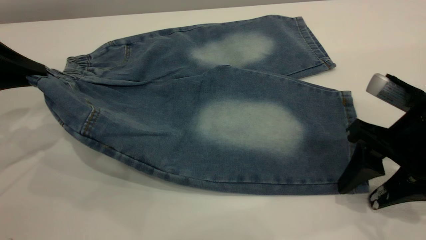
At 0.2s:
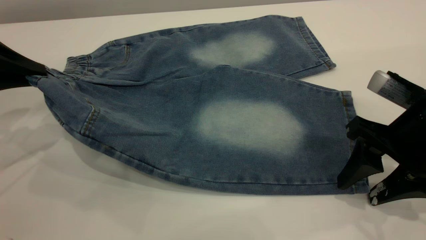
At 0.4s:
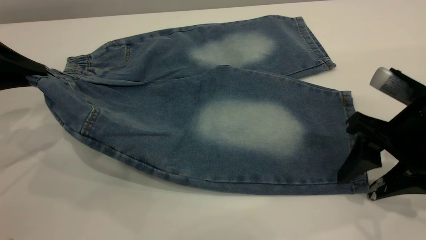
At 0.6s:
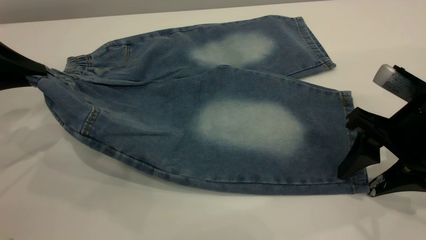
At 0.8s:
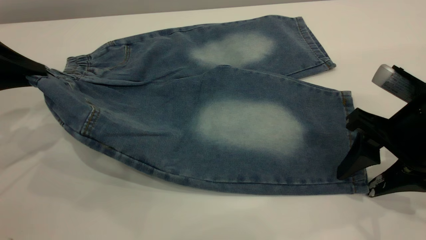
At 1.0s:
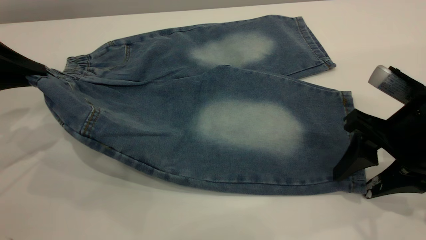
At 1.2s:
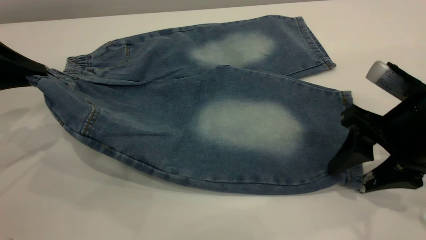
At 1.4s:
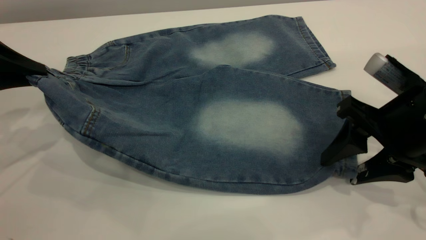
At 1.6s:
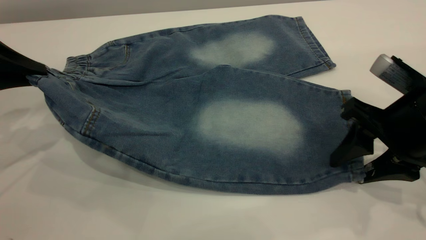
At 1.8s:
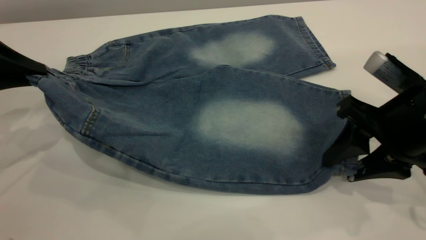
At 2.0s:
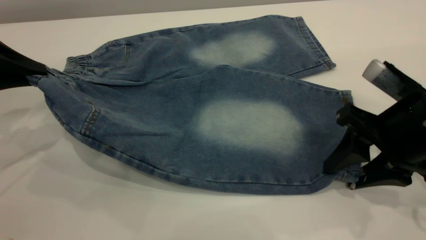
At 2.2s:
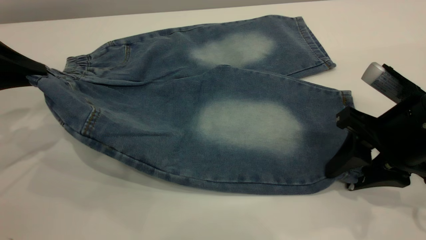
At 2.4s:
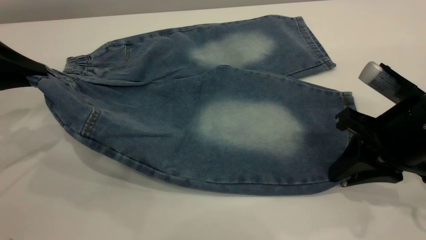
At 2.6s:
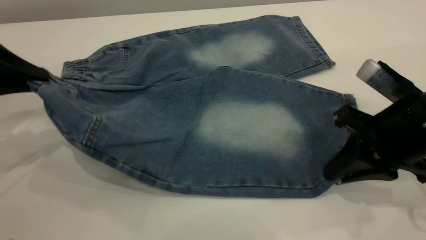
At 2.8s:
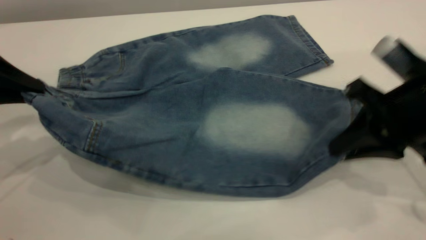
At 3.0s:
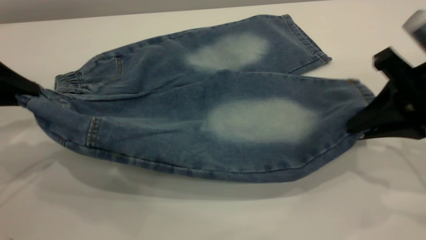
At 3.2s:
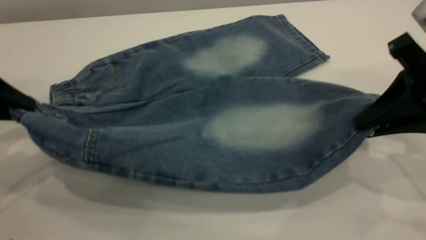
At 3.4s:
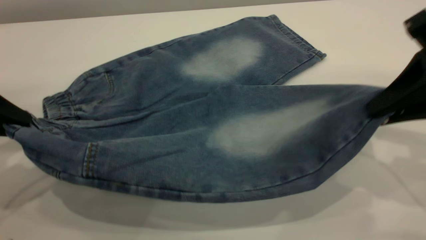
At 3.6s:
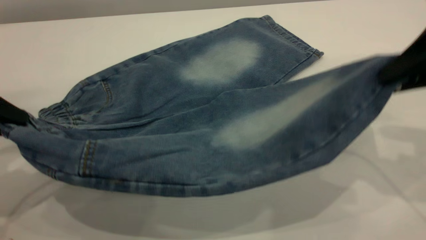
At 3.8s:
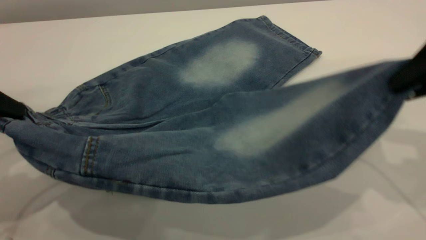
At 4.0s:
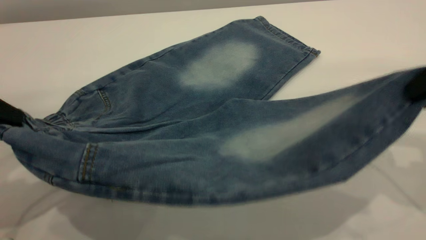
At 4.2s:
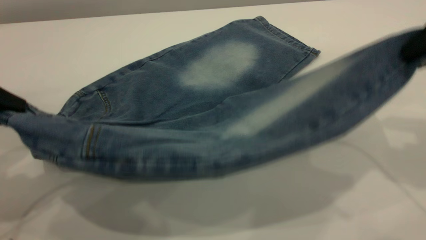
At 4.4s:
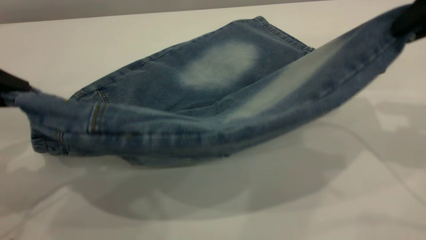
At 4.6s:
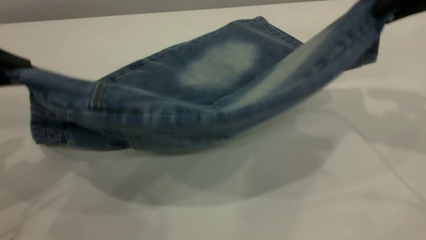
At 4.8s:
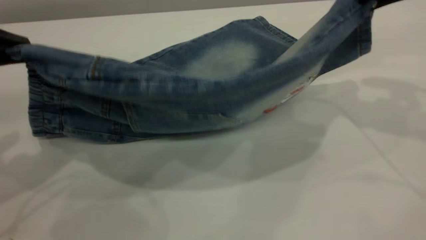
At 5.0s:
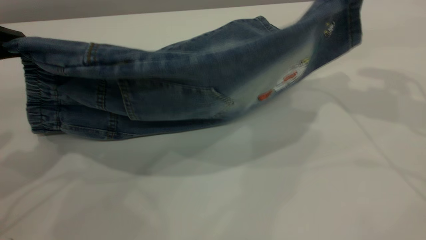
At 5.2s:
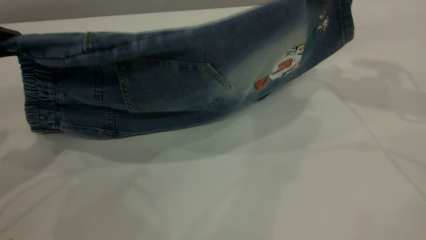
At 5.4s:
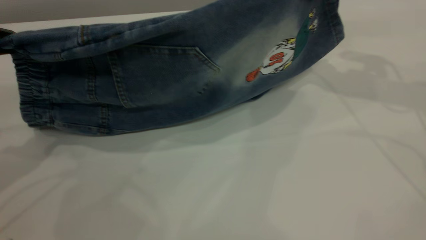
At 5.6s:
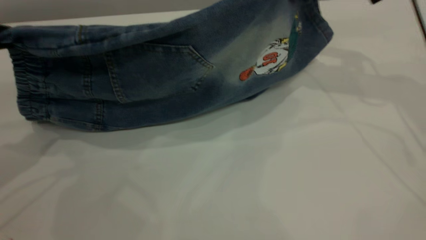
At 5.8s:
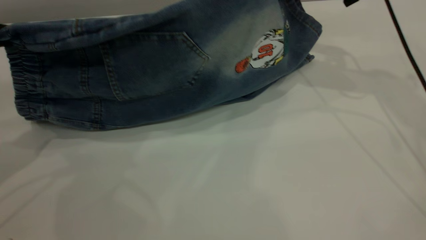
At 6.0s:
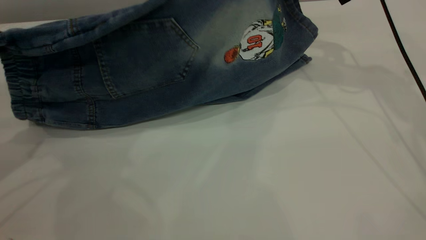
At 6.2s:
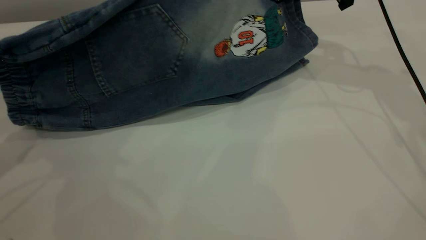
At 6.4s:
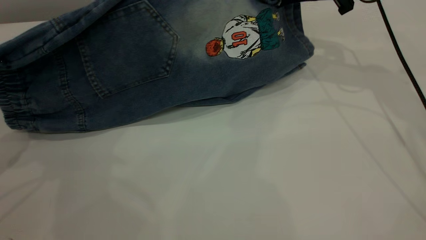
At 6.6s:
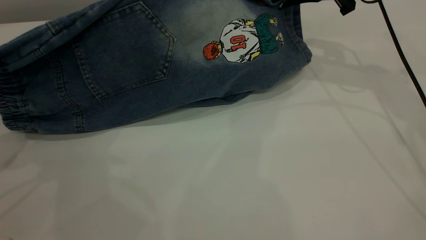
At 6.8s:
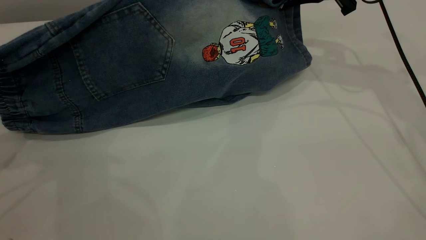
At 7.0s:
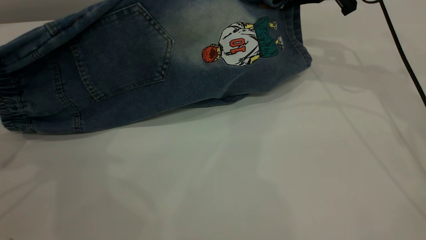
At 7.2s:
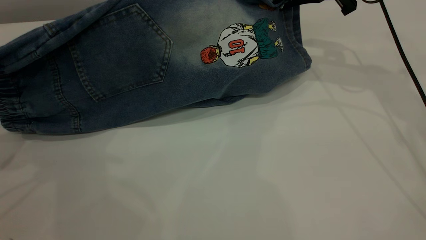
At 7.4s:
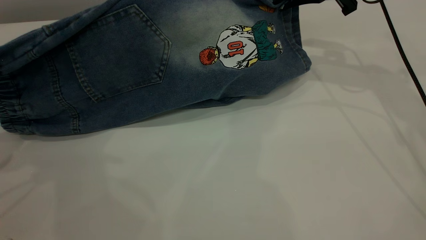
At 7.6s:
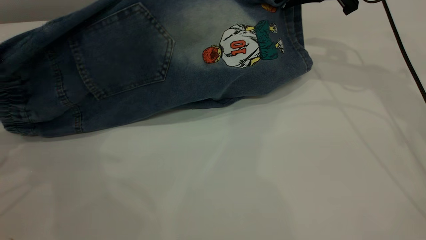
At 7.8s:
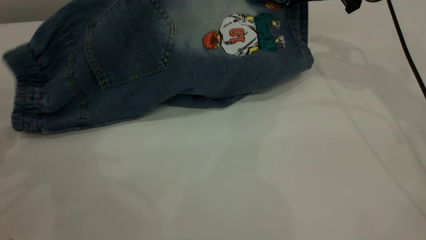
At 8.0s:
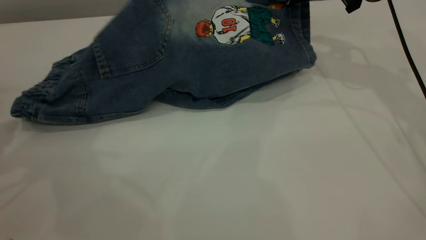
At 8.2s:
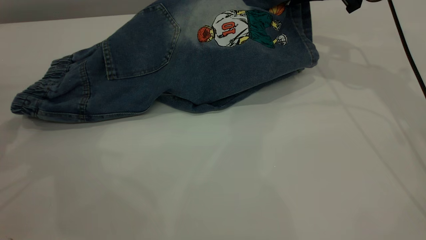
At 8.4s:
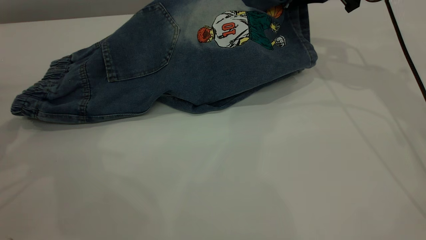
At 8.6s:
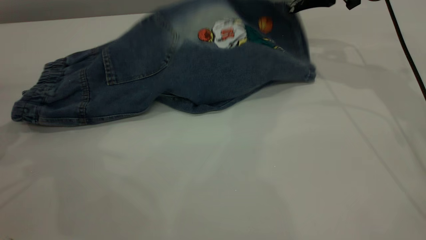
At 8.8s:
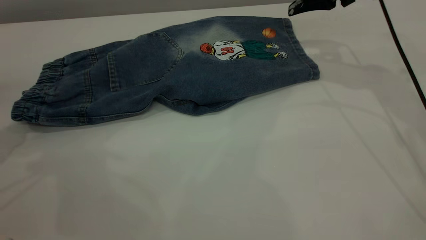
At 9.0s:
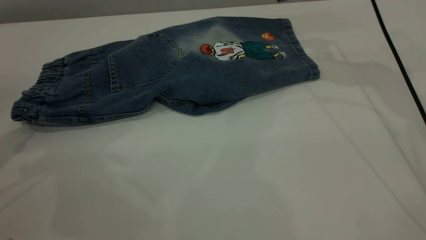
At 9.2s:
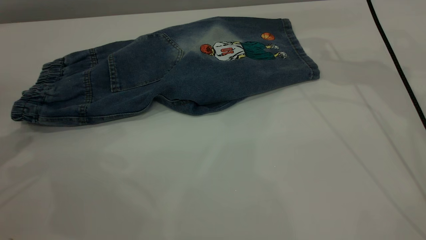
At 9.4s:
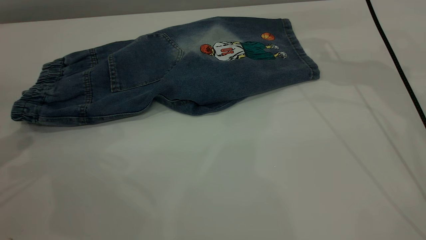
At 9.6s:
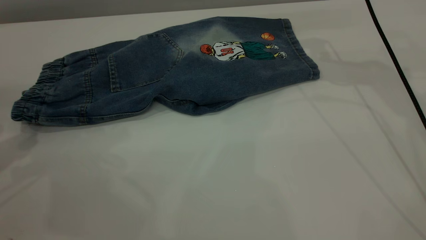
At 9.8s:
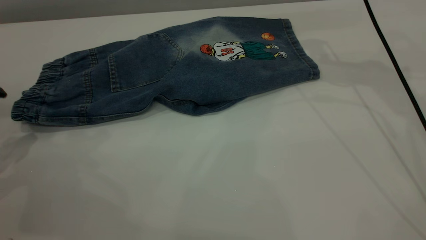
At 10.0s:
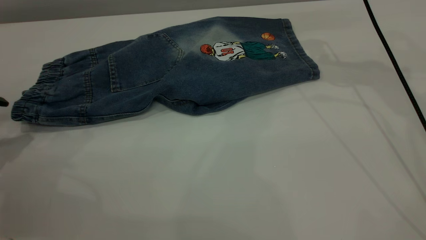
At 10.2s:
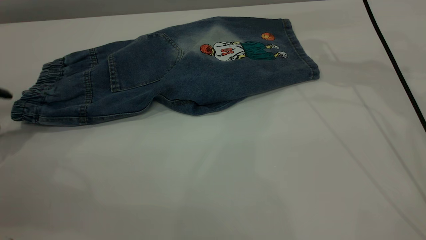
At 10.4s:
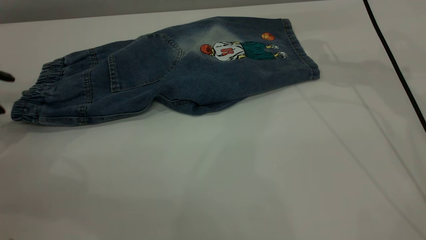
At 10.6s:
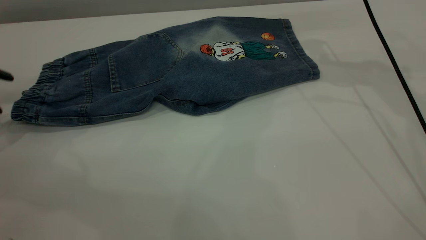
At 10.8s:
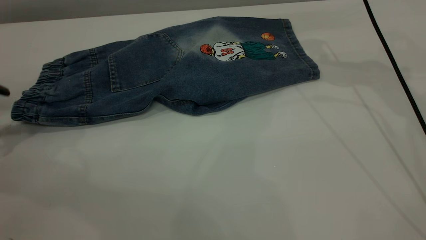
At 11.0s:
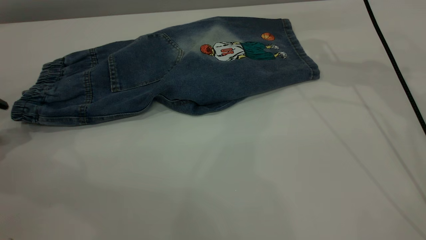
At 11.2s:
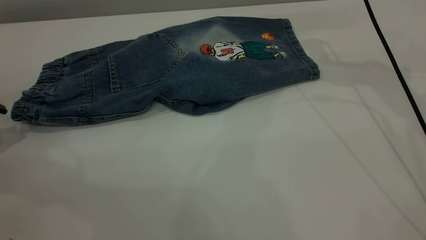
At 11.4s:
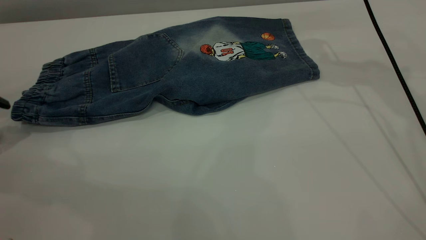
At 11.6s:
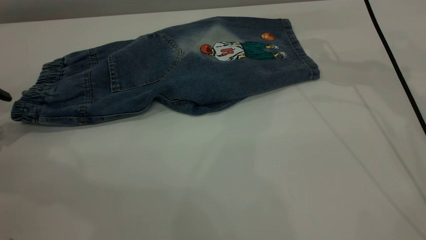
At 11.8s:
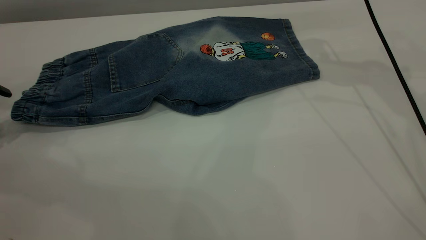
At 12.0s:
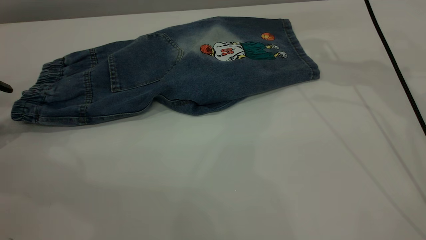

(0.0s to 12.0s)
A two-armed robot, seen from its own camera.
Step, 0.0s - 8.6s: Fold the bottom of the pants upward.
0.0s - 1.6s: The grippers make only small movements.
1.6s - 3.0s: The right gripper changes place by about 5 cm, and closes its fingers.
3.0s - 4.4s: The left gripper moves about 5 cm. The right gripper moves upward, roughly 10 cm.
4.4s - 6.0s: The right gripper heads forward and to the left, covering about 20 cm.
6.0s - 7.6s: The grippers stay close to where they were, moving slightly.
7.6s - 9.0s: The right gripper opens up.

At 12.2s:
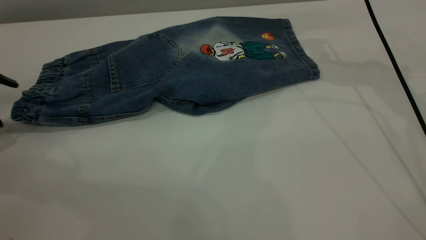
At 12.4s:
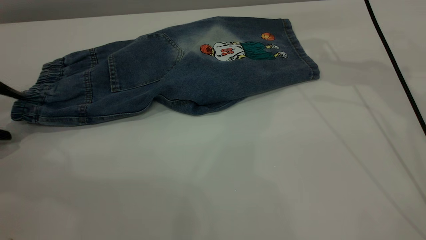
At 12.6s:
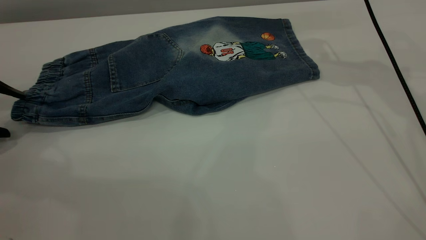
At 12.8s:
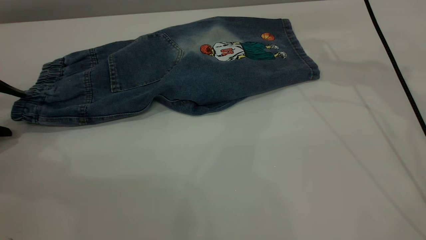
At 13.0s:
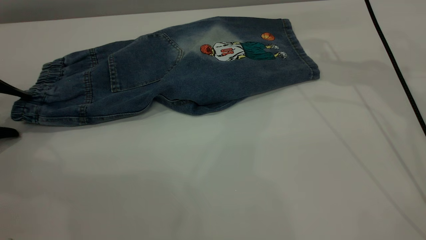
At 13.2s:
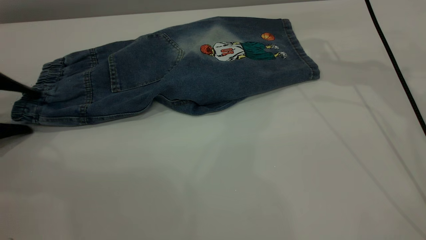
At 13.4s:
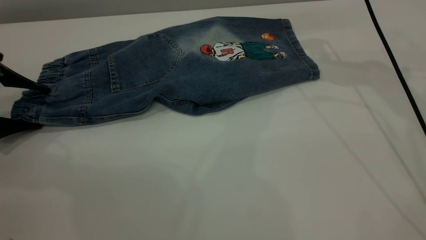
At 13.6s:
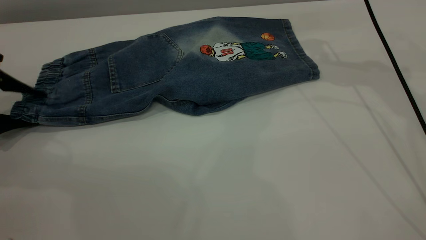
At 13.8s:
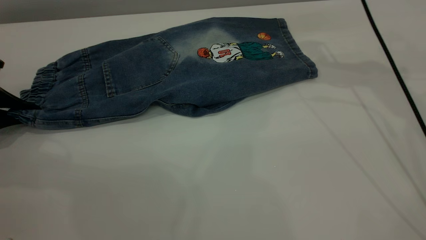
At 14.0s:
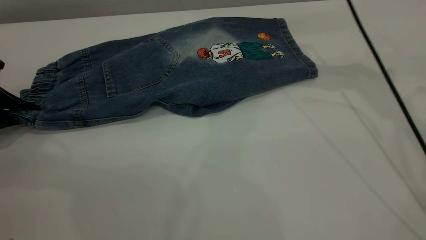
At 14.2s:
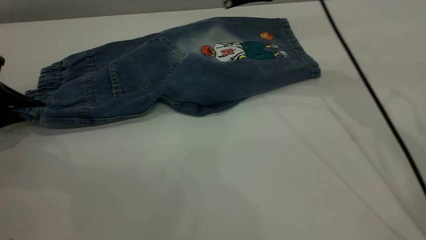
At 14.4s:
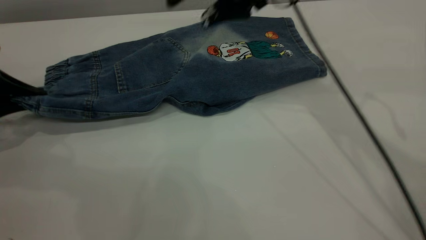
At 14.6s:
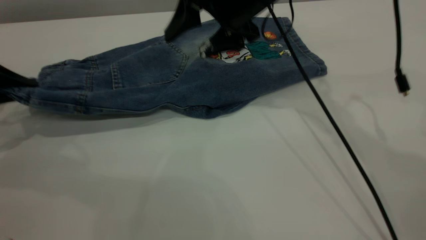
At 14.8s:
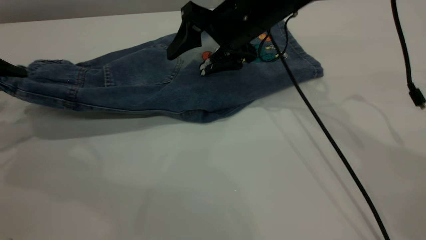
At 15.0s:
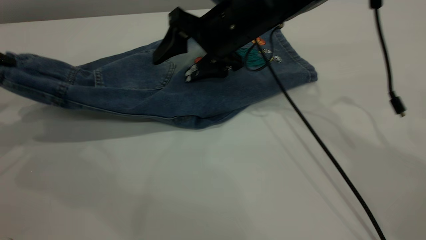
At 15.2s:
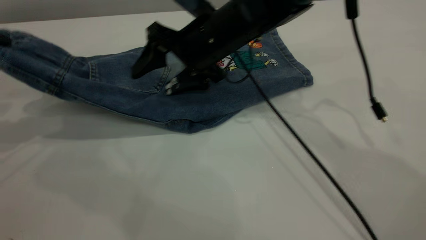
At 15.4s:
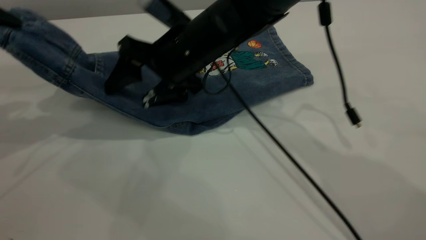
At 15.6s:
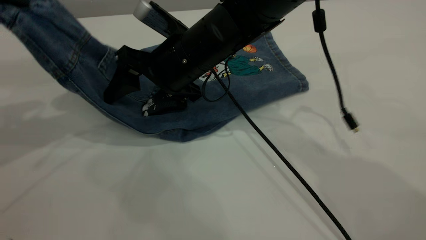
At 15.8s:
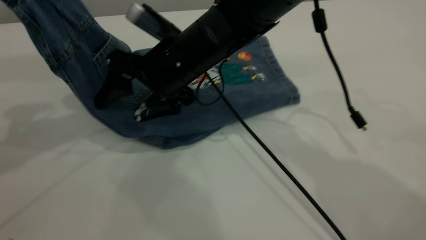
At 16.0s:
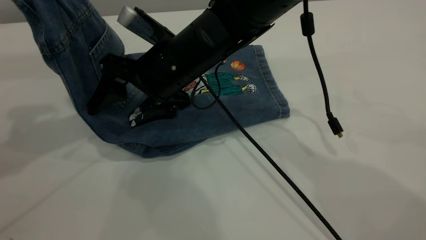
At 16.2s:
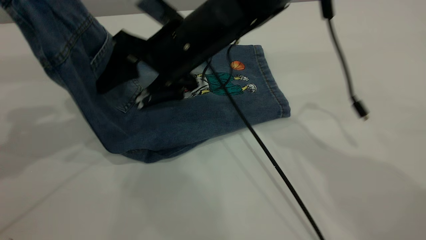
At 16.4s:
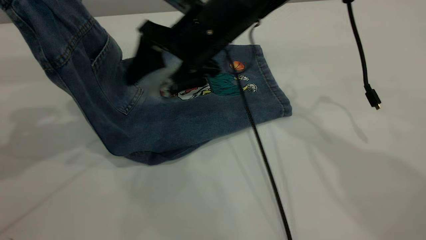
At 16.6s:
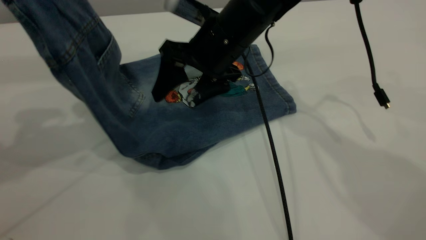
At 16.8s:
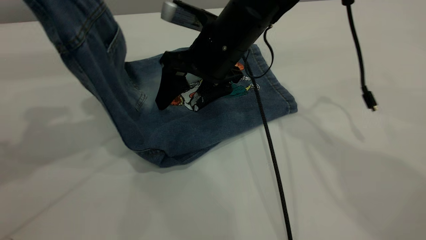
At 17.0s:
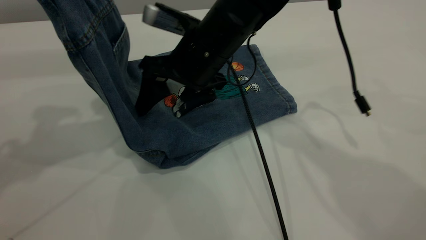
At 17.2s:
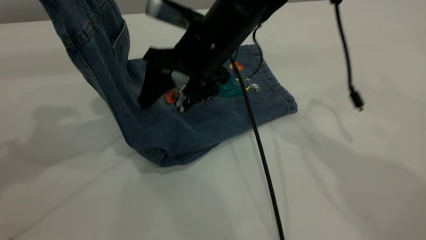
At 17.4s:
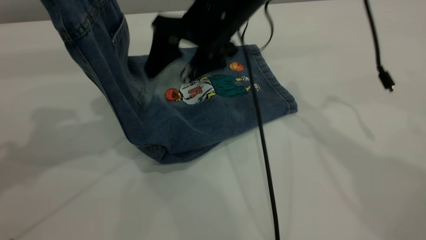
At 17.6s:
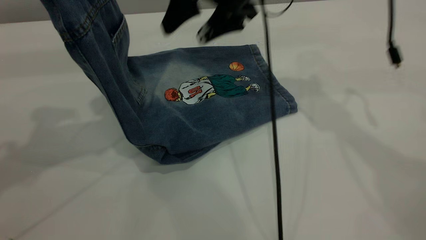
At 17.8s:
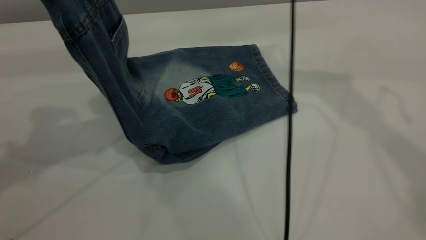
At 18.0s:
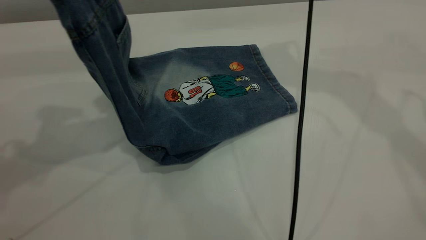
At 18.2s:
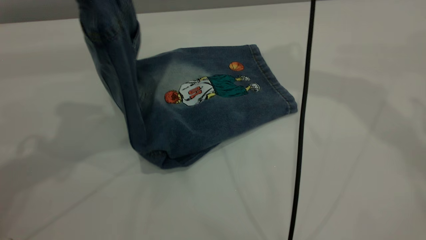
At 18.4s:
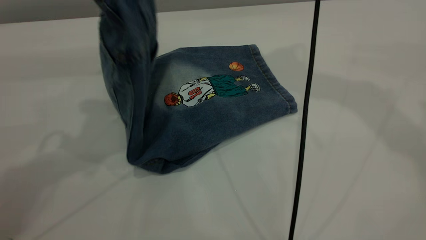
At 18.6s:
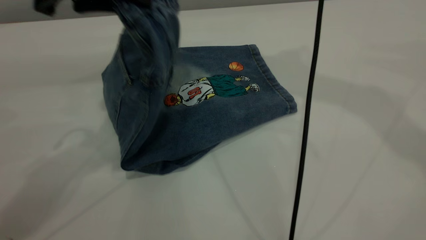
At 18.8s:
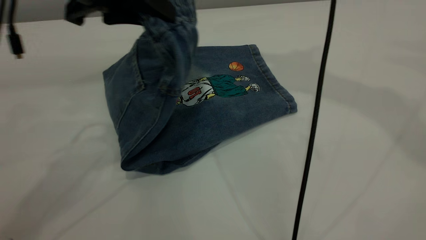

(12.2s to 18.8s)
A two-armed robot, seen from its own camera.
12.2s - 13.8s: The left gripper moves downward, some 5 cm, and closes up.
13.8s - 15.4s: The right gripper is displaced to the left and downward by approximately 25 cm. Meanwhile the left gripper is displaced upward by approximately 15 cm.
15.4s - 17.2s: The left gripper shifts roughly 10 cm upward and to the right.
17.2s - 18.8s: The right gripper travels upward and to the right by approximately 30 cm. Meanwhile the left gripper goes some 15 cm to the right and downward.
